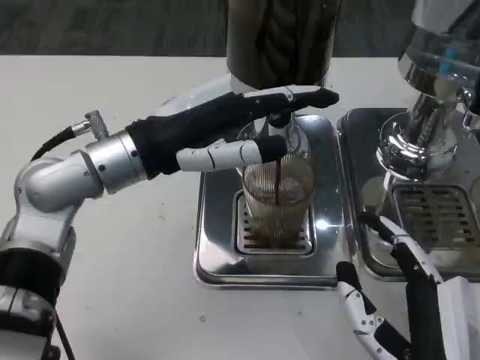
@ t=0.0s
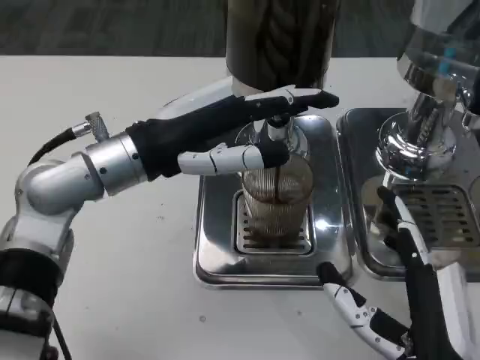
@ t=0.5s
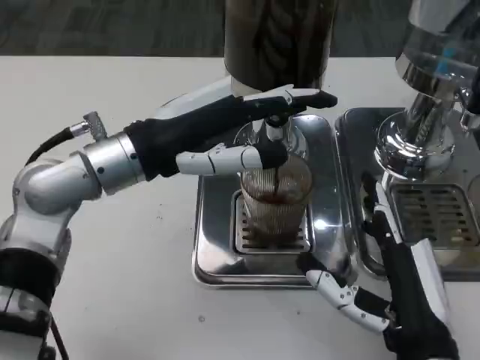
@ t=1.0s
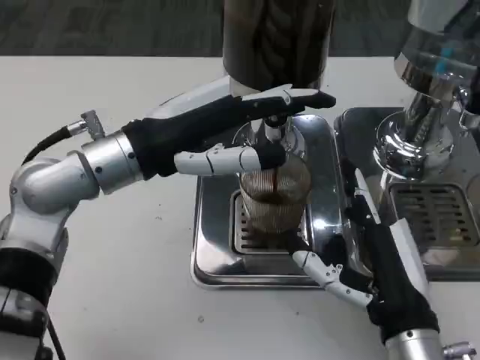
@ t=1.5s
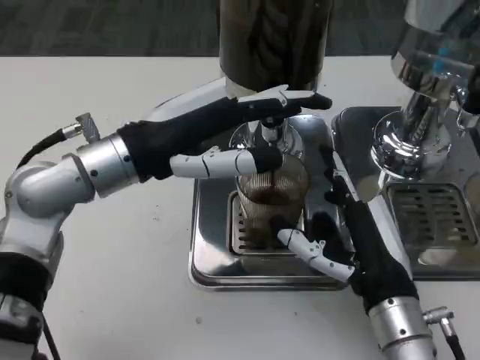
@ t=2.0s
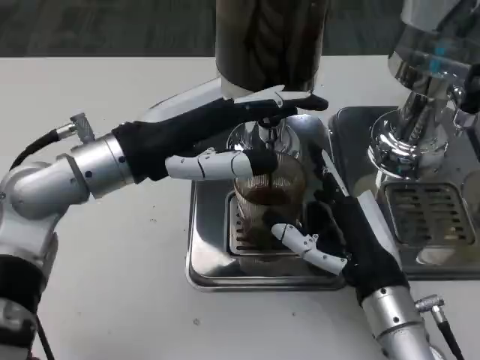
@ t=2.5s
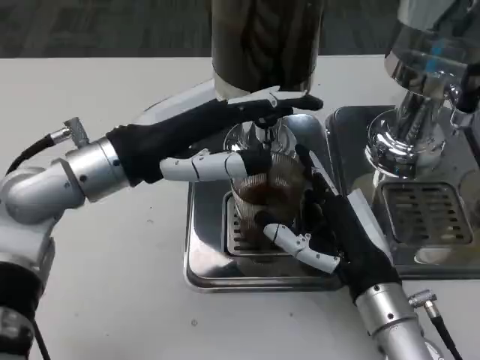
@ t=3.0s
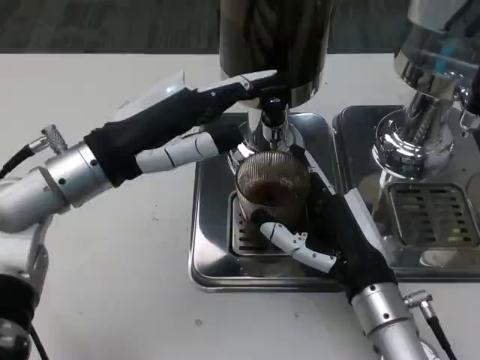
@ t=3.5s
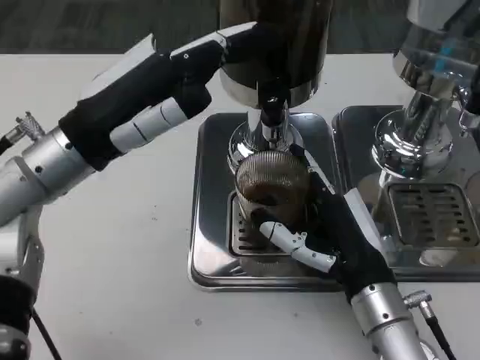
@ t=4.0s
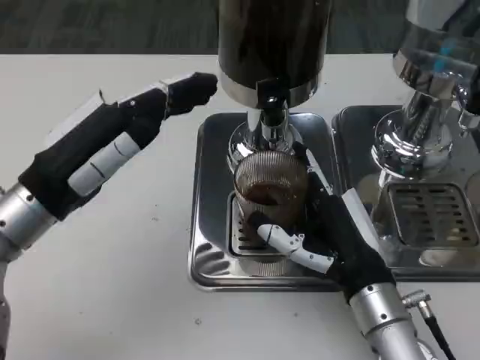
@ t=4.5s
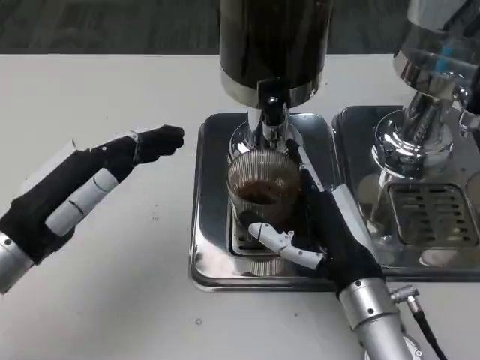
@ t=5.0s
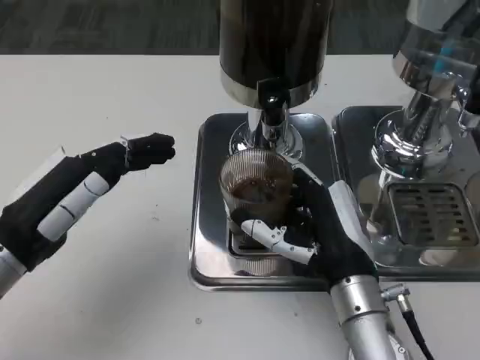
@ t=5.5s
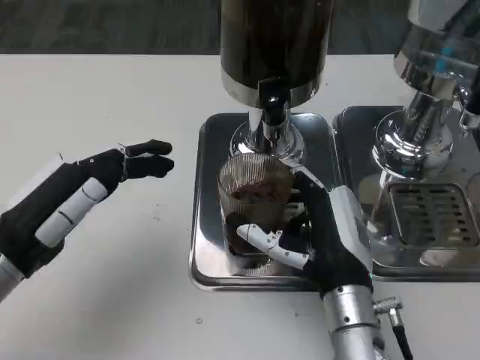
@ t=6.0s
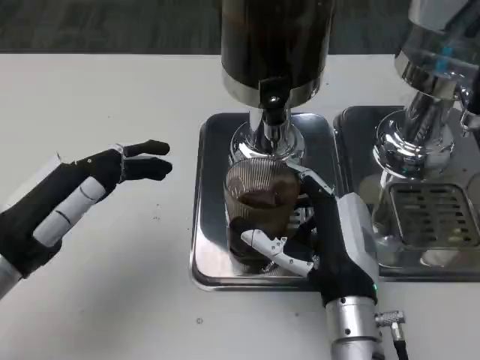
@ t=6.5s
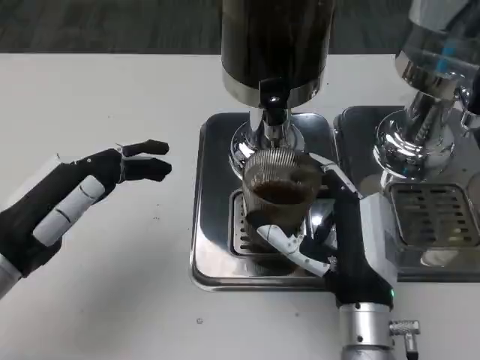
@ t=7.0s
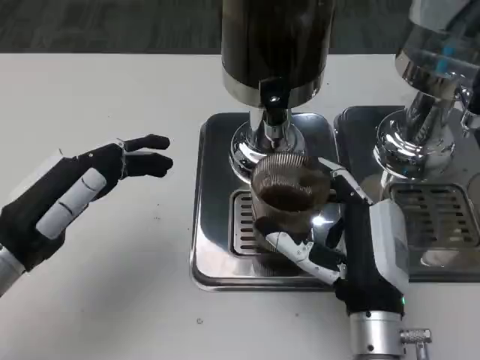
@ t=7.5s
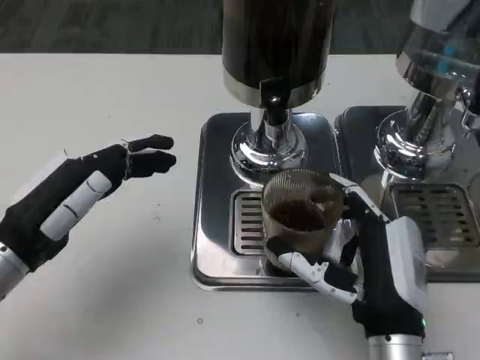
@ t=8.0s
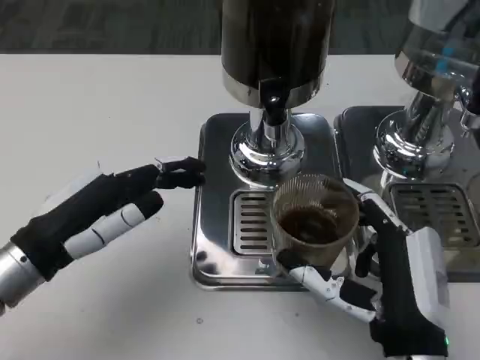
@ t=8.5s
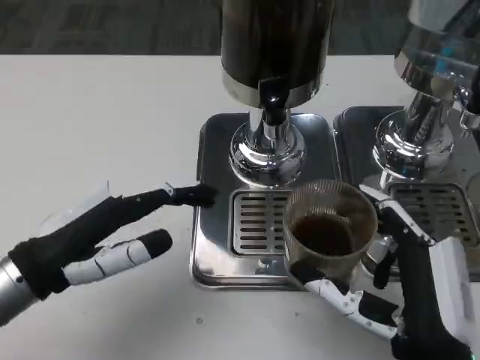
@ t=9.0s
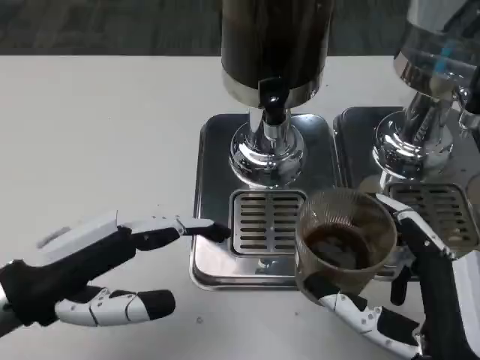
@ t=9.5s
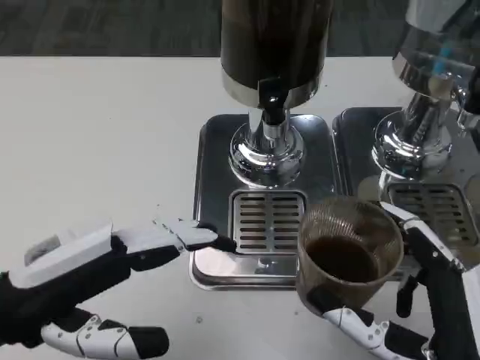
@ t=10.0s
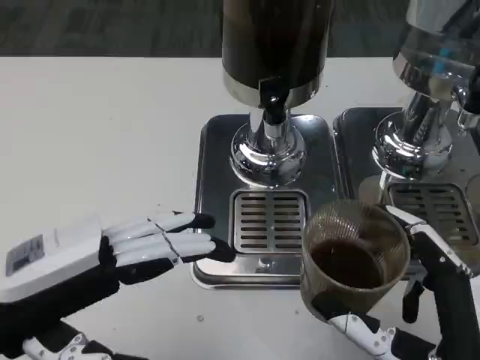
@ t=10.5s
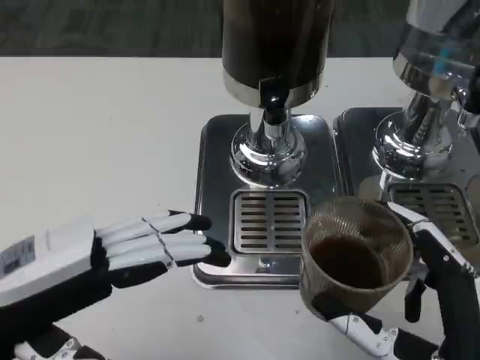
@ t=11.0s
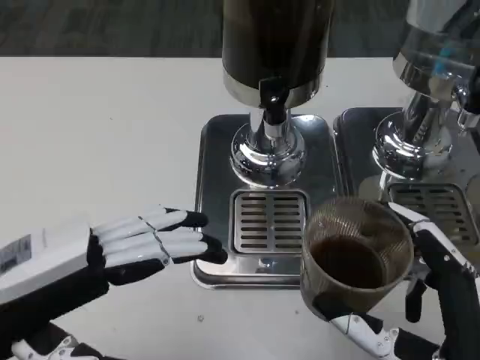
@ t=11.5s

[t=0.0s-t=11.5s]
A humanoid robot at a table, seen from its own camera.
Task of the whole recording: Grasp the cup under the faucet to collect the drink, then remove the cup.
t=0.0s to t=2.0s: The right hand heads forward, covering about 10 cm.
t=4.0s to t=6.0s: The left hand heads backward, downward and to the left, covering about 10 cm.
t=6.0s to t=7.5s: There are only small adjustments of the hands.
t=7.5s to t=9.5s: The right hand heads backward, covering some 10 cm.

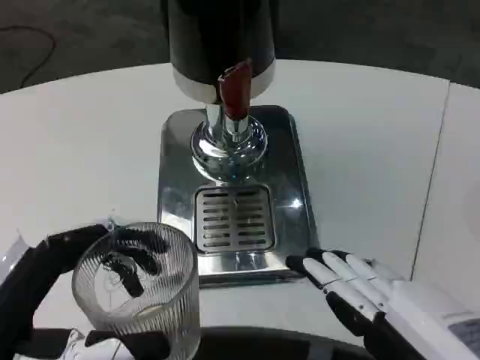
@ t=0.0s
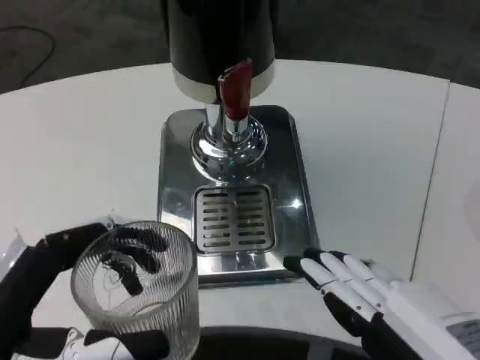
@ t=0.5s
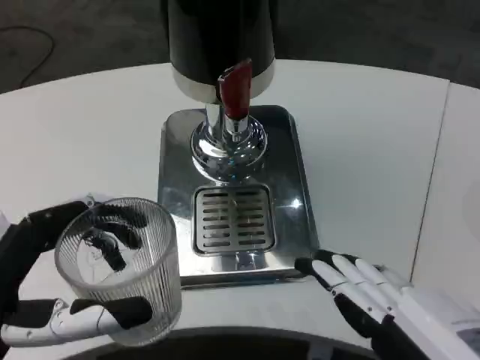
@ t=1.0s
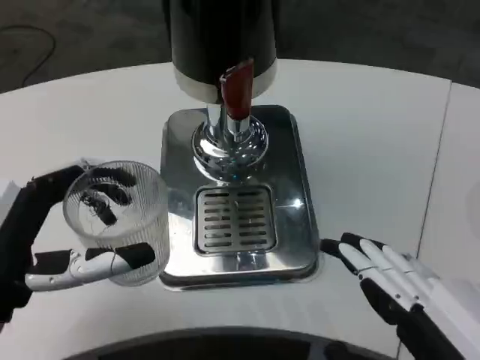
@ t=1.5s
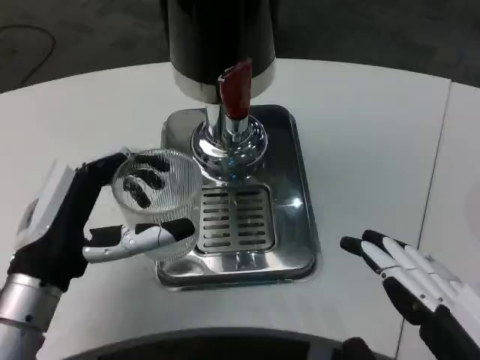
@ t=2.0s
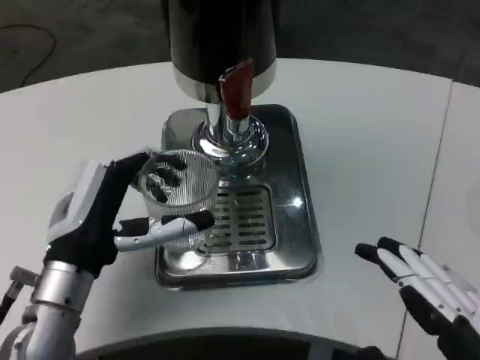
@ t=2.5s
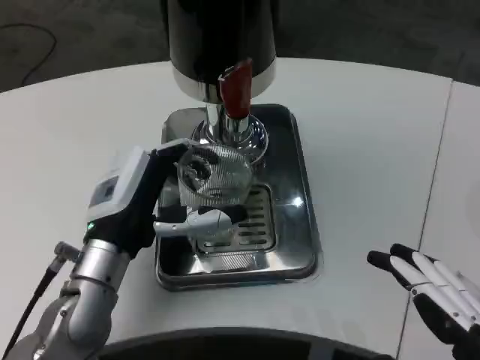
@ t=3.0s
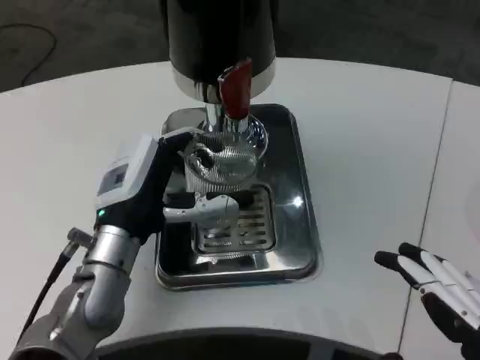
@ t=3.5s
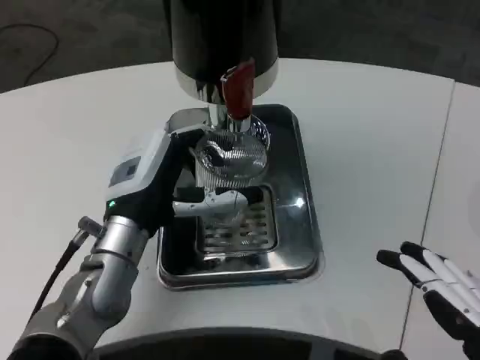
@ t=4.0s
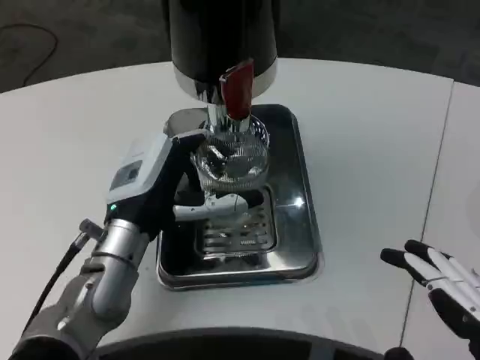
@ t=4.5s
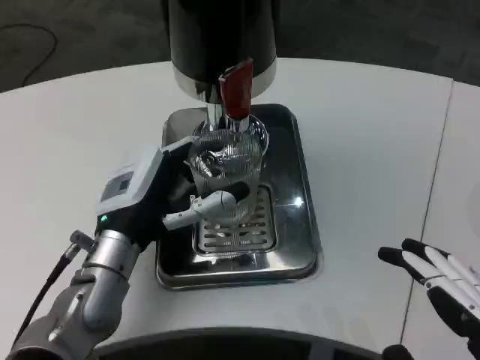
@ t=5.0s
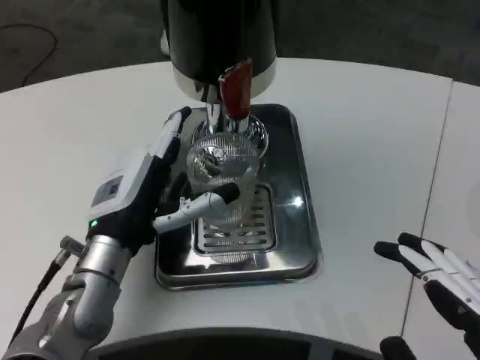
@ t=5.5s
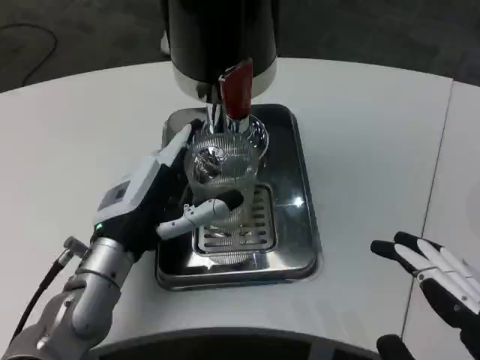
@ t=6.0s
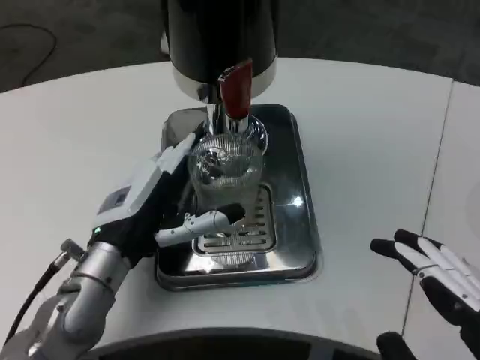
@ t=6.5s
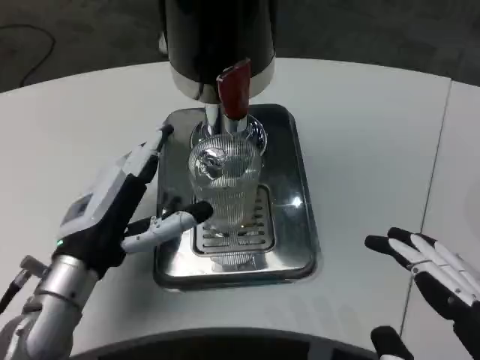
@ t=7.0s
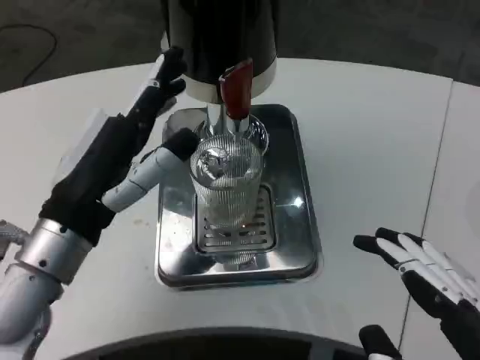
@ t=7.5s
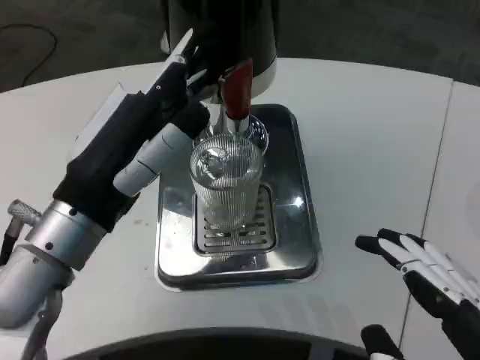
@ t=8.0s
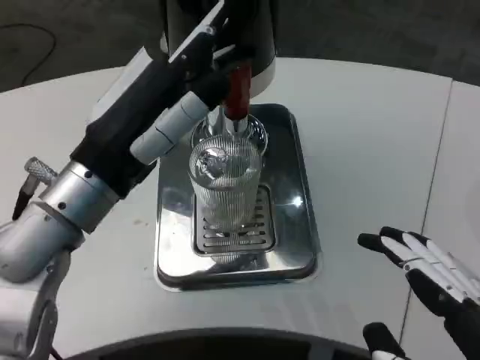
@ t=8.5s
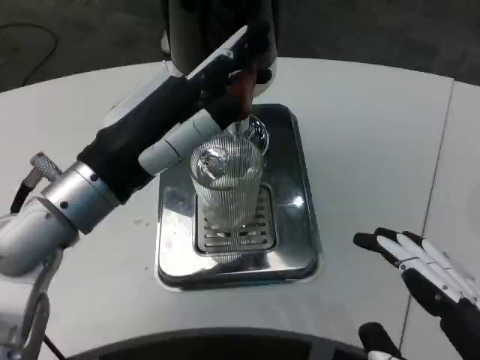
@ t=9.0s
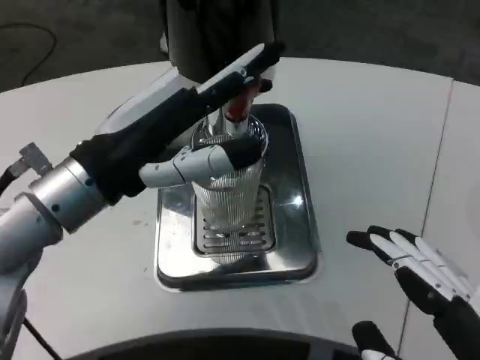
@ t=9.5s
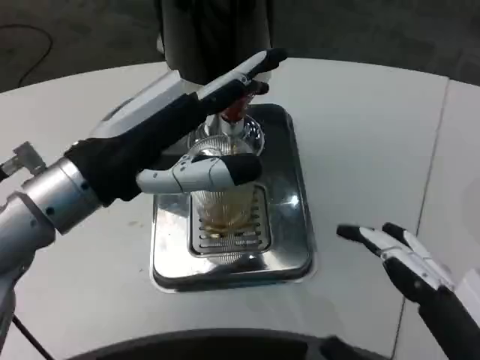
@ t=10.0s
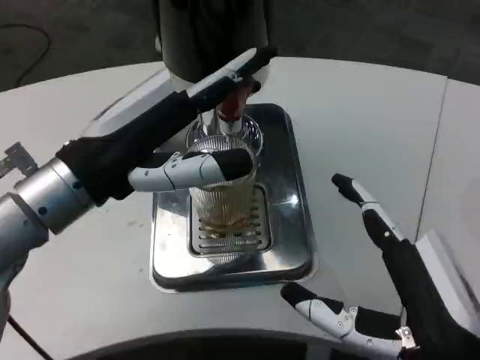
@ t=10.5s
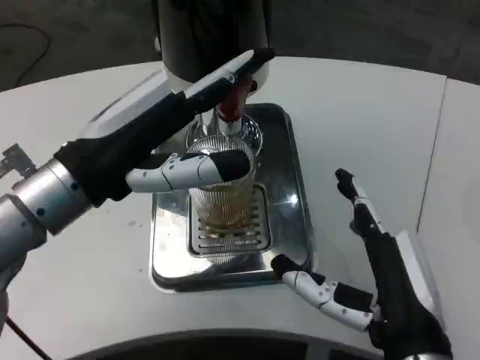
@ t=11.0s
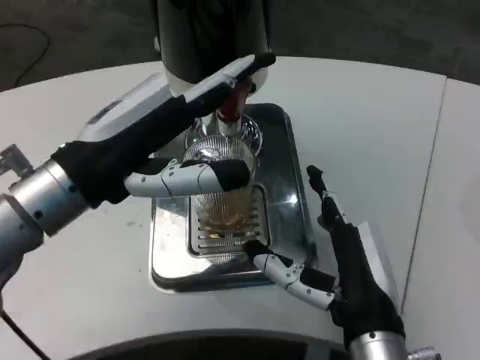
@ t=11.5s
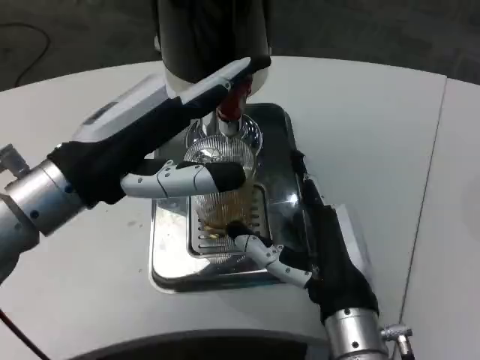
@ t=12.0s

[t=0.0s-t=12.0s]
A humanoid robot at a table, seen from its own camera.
Task of the whole recording: Grasp the cup under the faucet to collect the drink, then remove the cup.
t=0.0s to t=2.0s: The left hand is displaced forward by some 10 cm.
t=2.0s to t=4.0s: The left hand travels forward and to the right by approximately 10 cm.
t=4.0s to t=6.0s: The hands stay close to where they were, moving slightly.
t=6.0s to t=8.0s: The left hand travels upward and backward by about 10 cm.
t=10.0s to t=12.0s: The right hand moves forward, to the left and downward, about 20 cm.

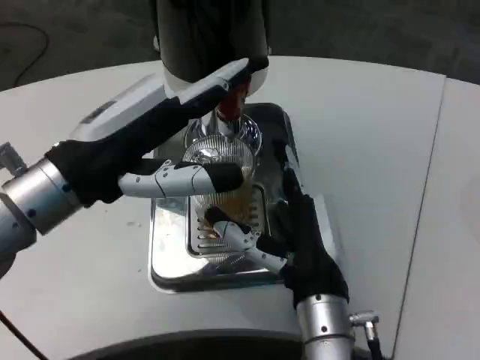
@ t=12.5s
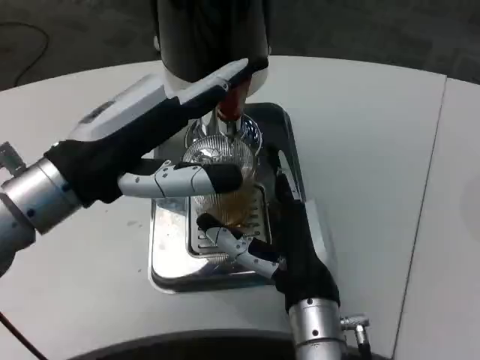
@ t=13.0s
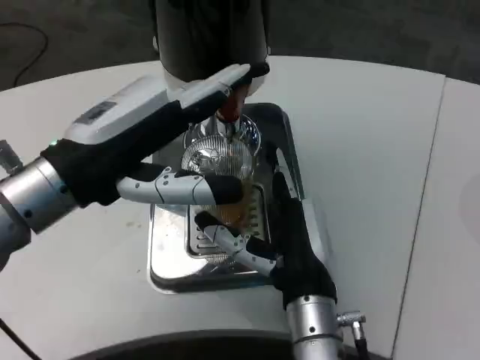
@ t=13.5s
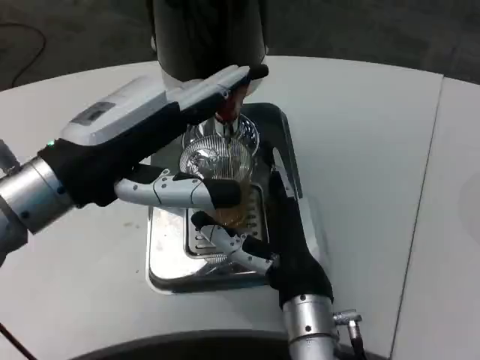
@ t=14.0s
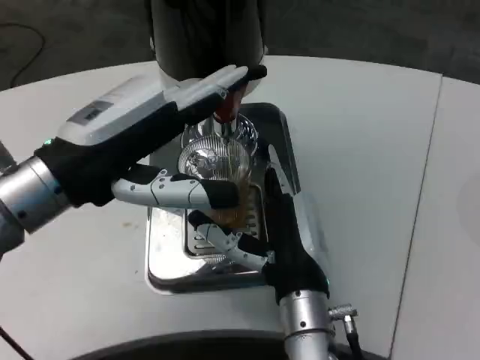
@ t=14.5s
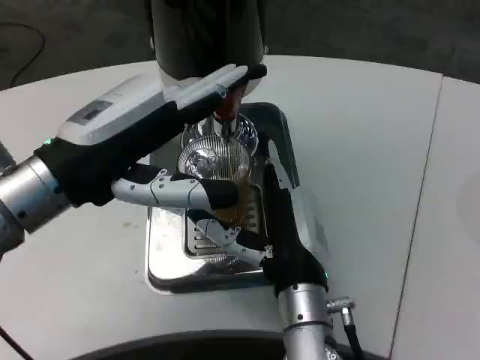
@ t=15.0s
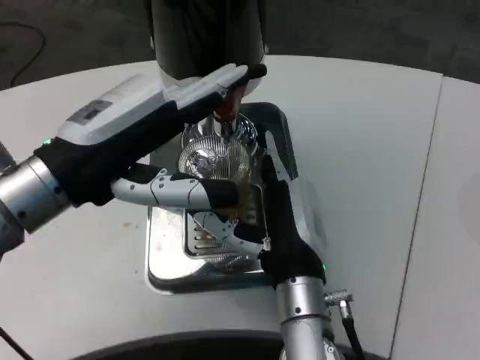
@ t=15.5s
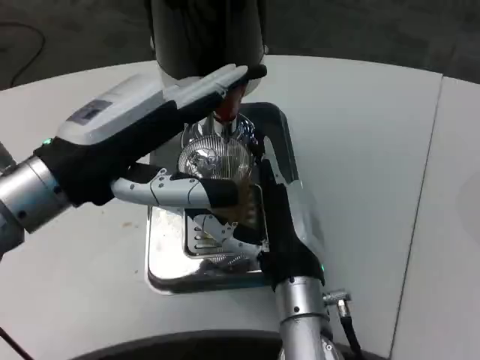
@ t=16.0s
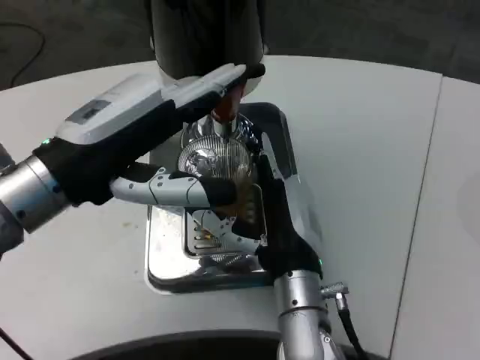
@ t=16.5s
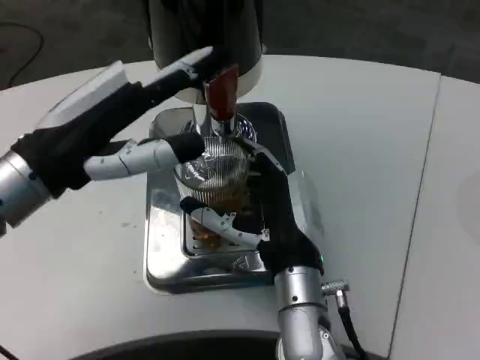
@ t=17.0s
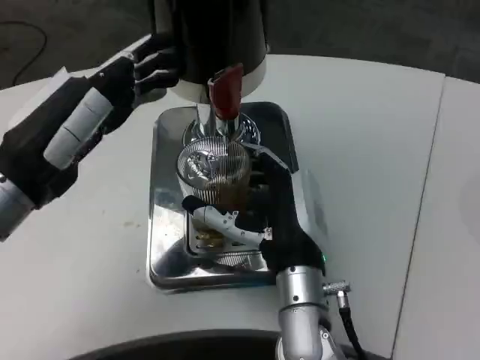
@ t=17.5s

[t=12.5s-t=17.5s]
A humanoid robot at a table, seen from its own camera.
Task of the whole recording: Grasp the cup under the faucet to collect the drink, then remove the cup.
t=12.5s to t=15.0s: There are only small adjustments of the hands.
